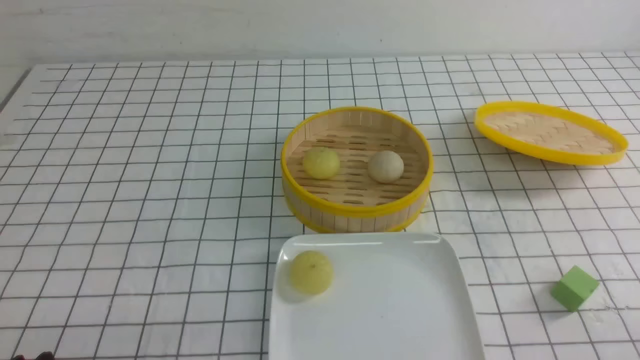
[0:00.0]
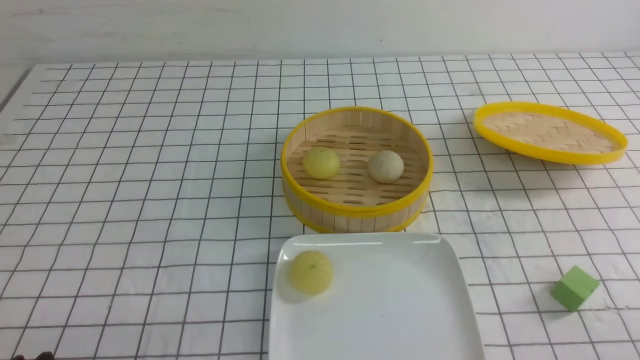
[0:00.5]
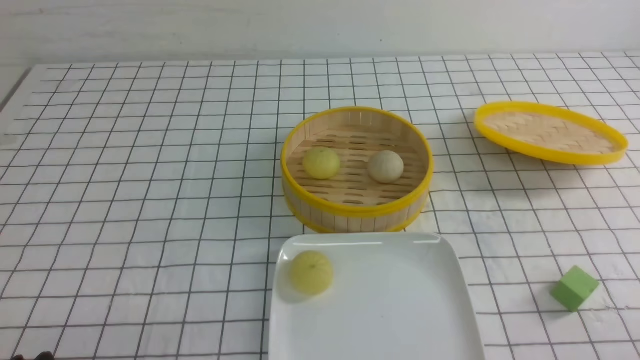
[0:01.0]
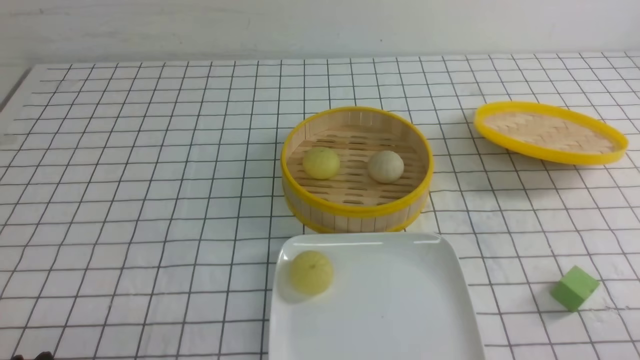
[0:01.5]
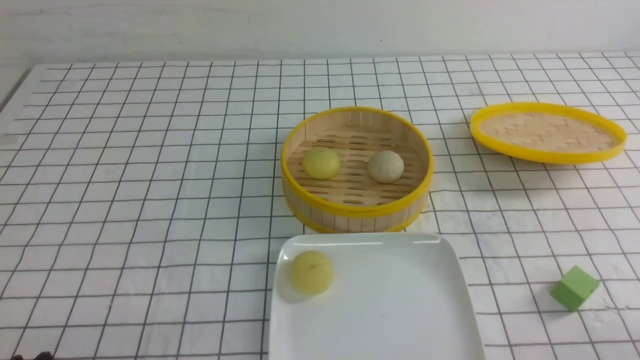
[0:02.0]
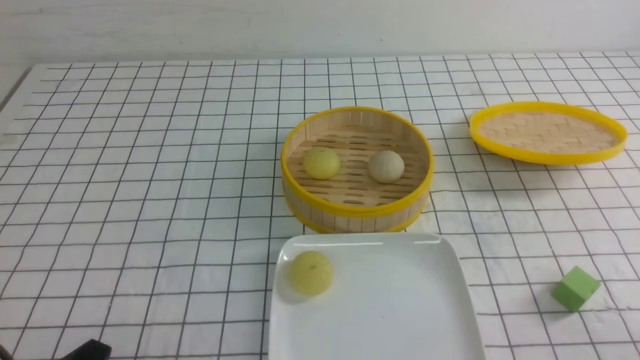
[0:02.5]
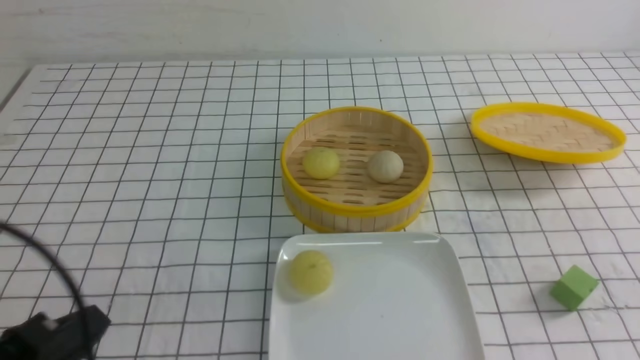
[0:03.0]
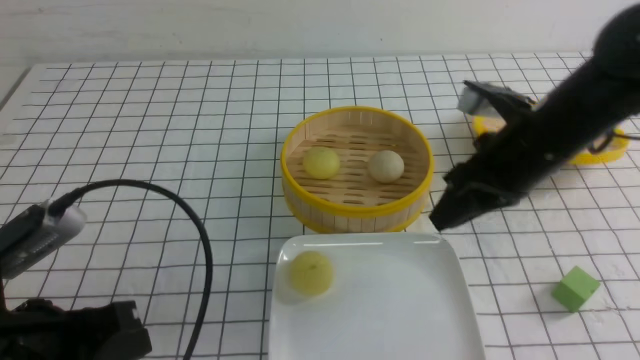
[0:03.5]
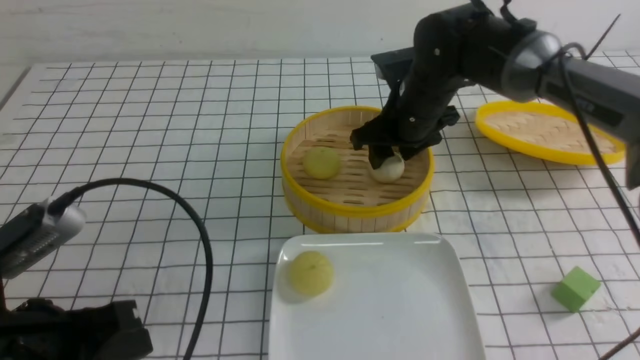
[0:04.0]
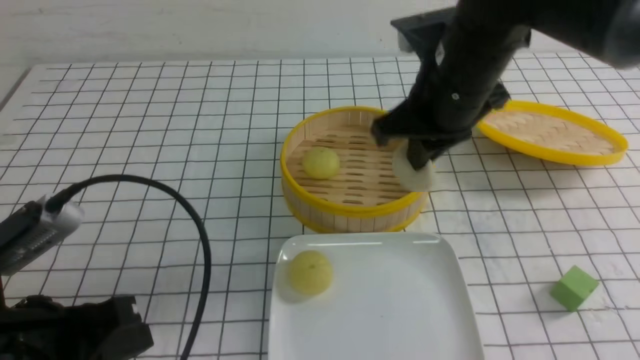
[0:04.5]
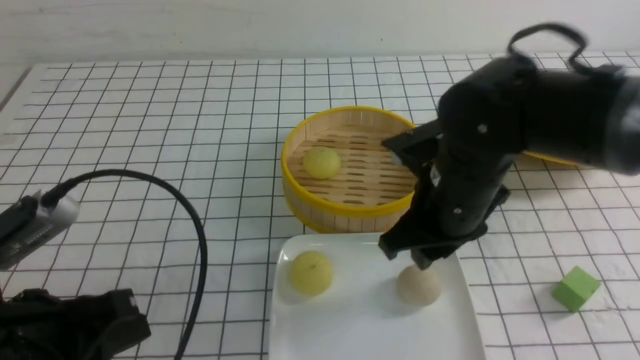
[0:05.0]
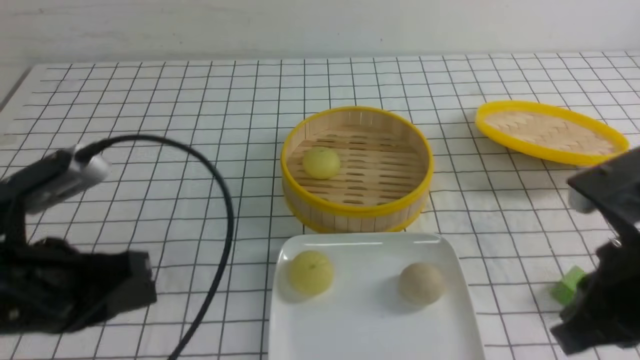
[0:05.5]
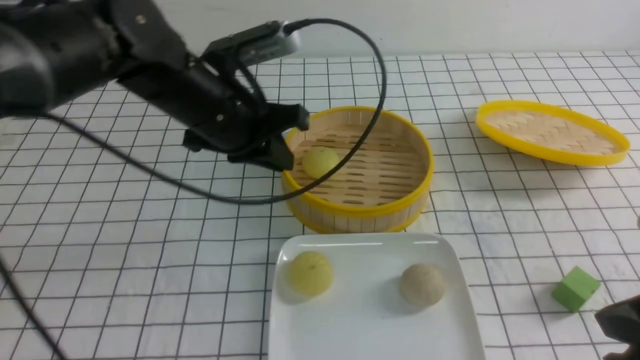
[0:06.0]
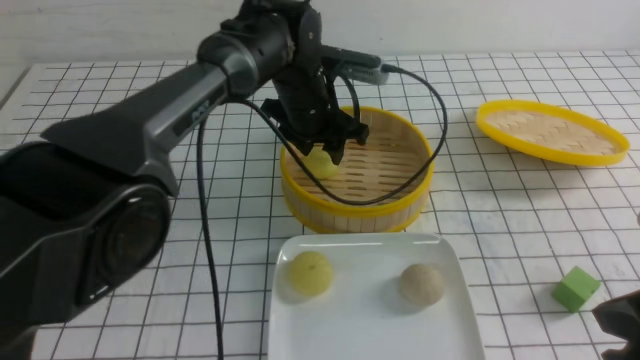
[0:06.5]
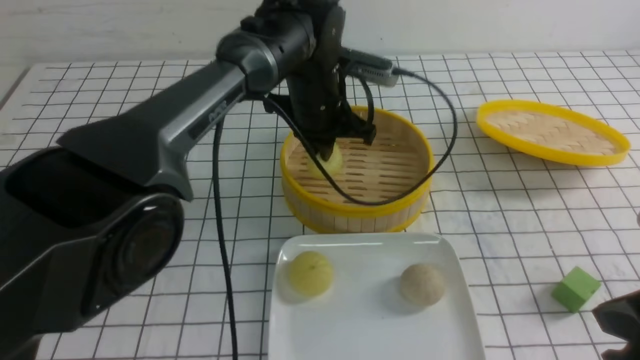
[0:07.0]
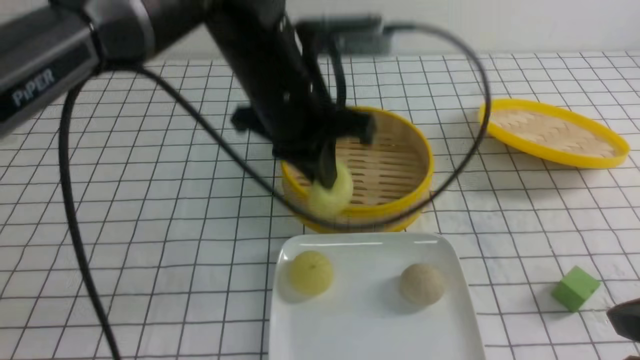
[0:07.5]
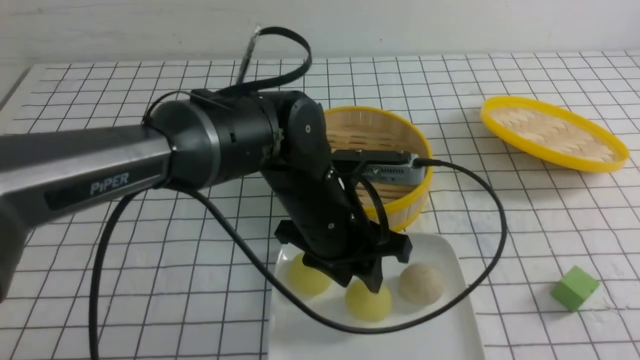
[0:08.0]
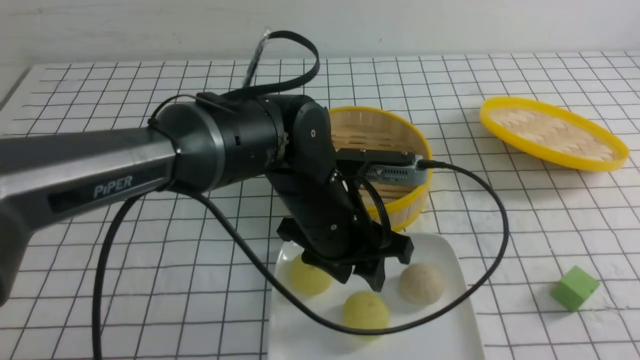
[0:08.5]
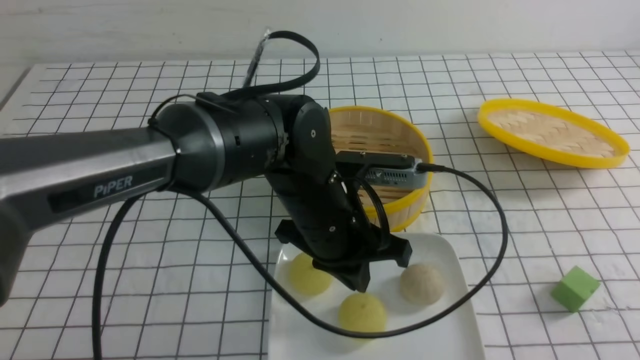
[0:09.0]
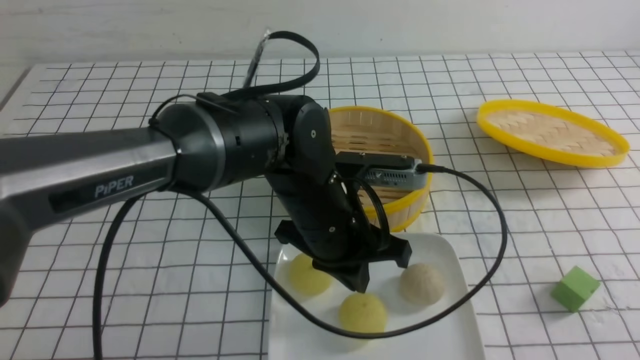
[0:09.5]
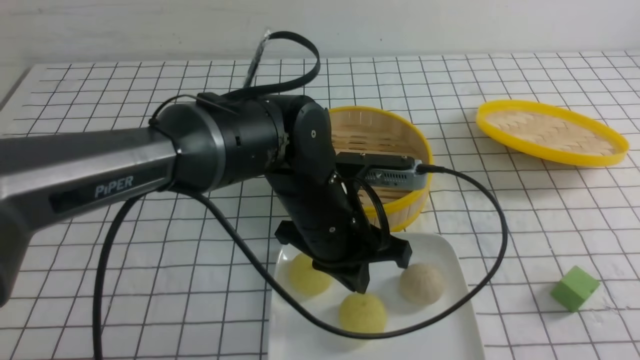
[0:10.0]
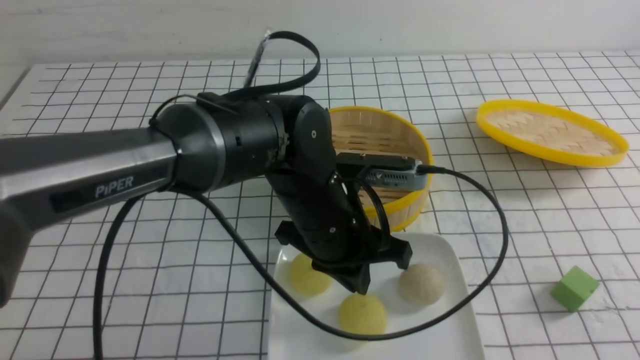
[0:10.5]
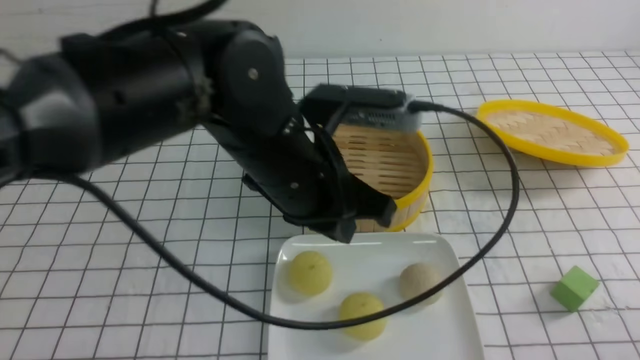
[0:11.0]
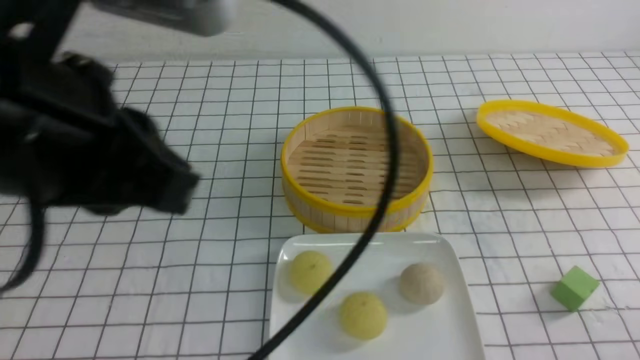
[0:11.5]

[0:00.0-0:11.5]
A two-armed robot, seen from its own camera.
Step, 0:00.0 to 0:04.0: use the right arm to grab the steamed stuffed bun that is closest to it.
Step, 0:05.0 to 0:06.5: use the left arm to grab the steamed stuffed bun that is closest to it.
Step, 0:07.0 to 0:08.0: use the left arm to put the steamed stuffed bun into the plate.
0:02.0 to 0:04.0: The left gripper travels upward and forward by approximately 10 cm, and closes; the right gripper travels forward and to the left by some 40 cm, and closes and opens again.
0:04.0 to 0:06.0: The right gripper goes approximately 35 cm backward and to the right, and closes, while the left gripper shifts roughly 25 cm forward and to the right.
0:06.0 to 0:07.5: The left gripper is displaced to the right by some 5 cm, travels forward and back again, some 10 cm each way, and opens, then closes again.
0:07.5 to 0:09.5: The left gripper goes some 10 cm downward and backward, and opens, then closes again. The right gripper travels backward by approximately 5 cm.
0:09.5 to 0:11.5: The left gripper is displaced upward, to the left and backward by some 30 cm; the right gripper travels downward by about 10 cm.

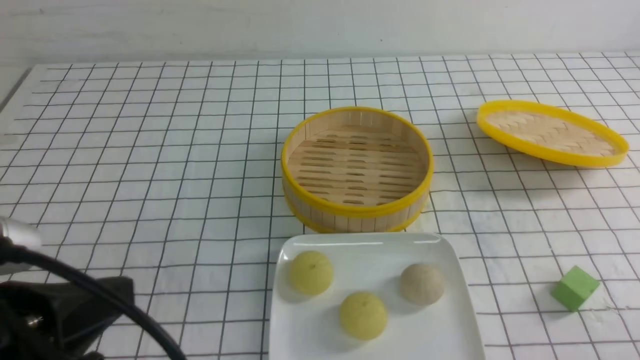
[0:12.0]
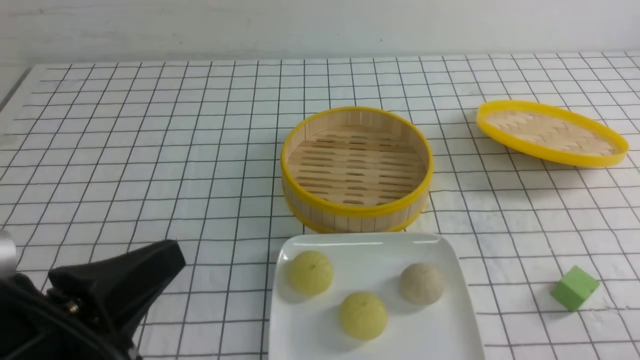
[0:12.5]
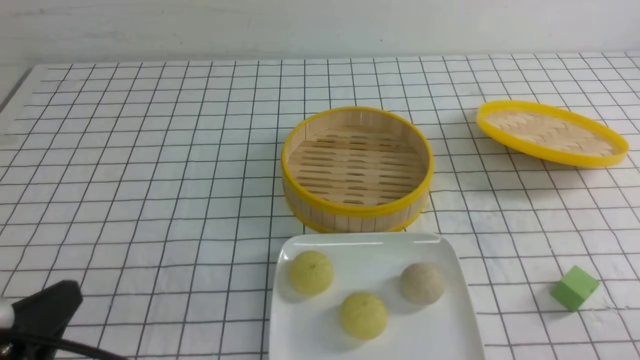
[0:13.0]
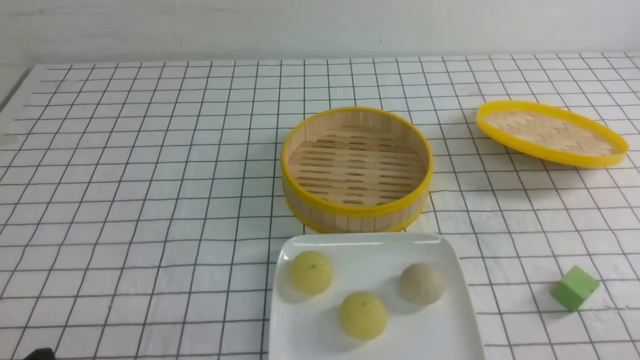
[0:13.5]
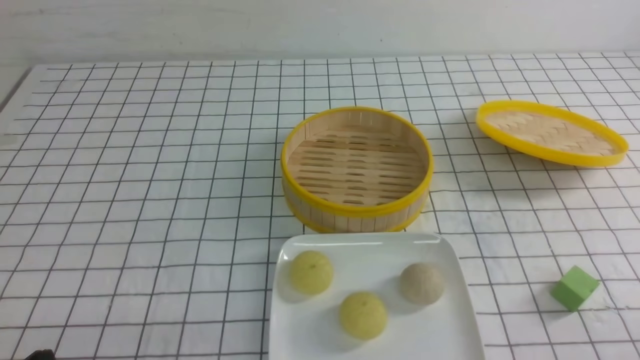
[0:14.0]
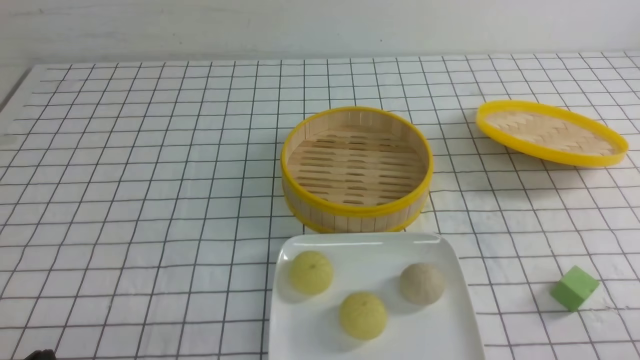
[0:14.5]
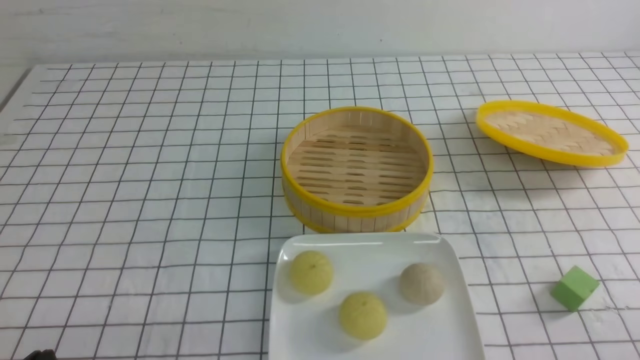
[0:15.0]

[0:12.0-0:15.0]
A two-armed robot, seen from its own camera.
0:12.0 to 0:13.5: The left gripper is displaced downward by approximately 15 cm.
0:13.5 to 0:15.0: Neither gripper changes place.
